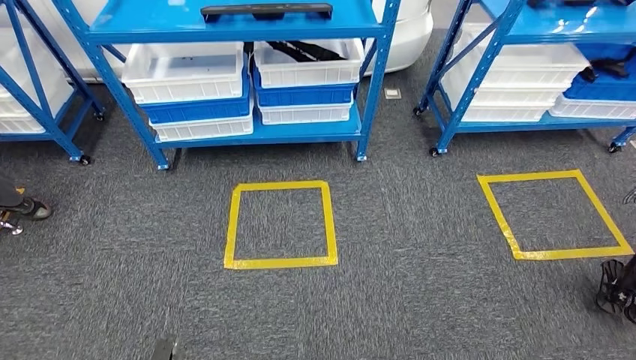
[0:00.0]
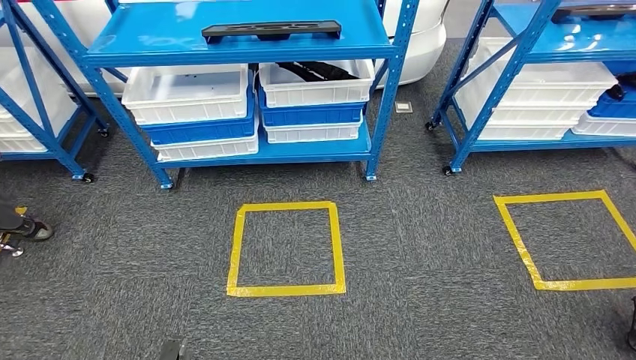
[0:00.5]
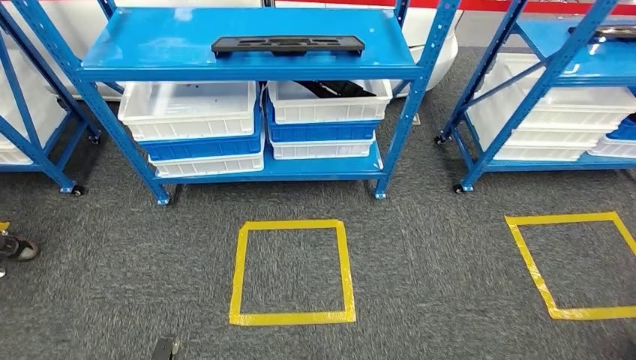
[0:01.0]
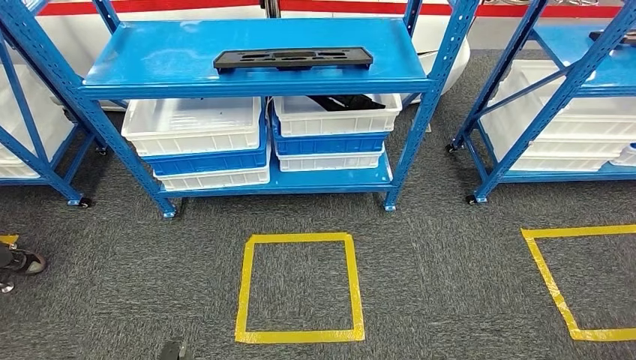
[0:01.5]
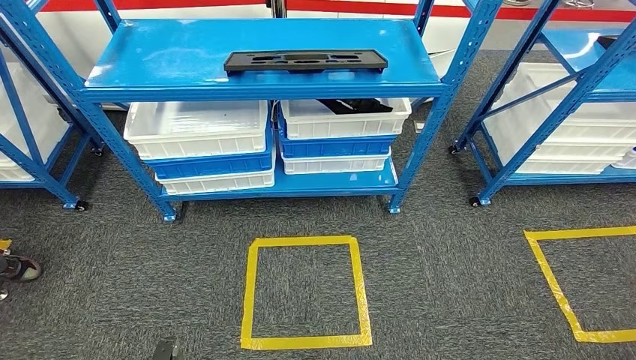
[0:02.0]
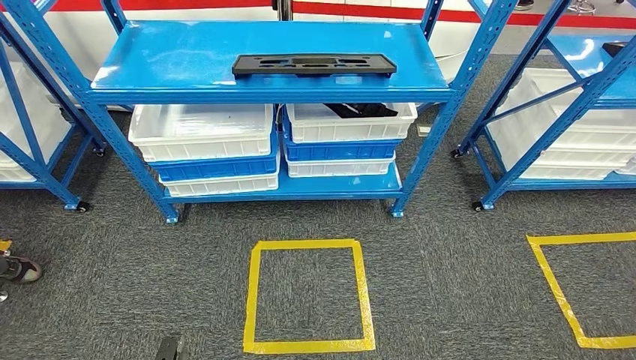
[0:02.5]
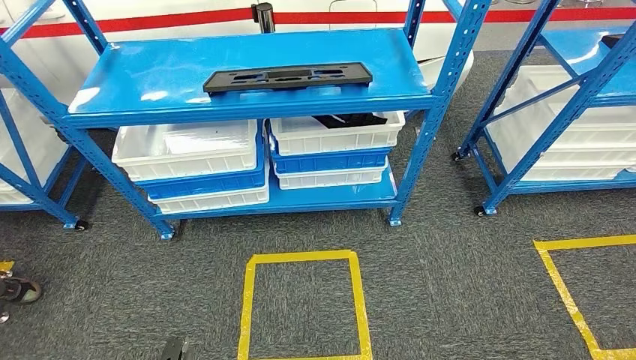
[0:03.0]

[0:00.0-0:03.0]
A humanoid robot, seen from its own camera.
Step, 0:00.0 to 0:03.0: Move to the initial position of the shelf.

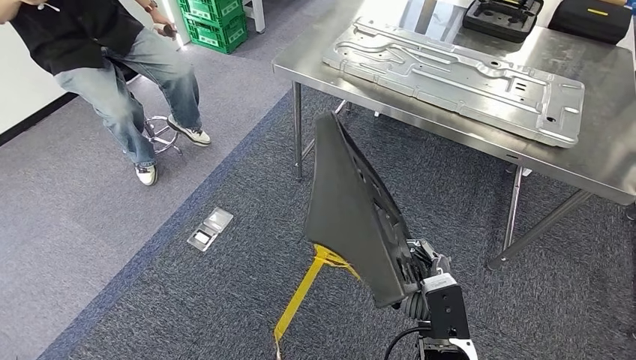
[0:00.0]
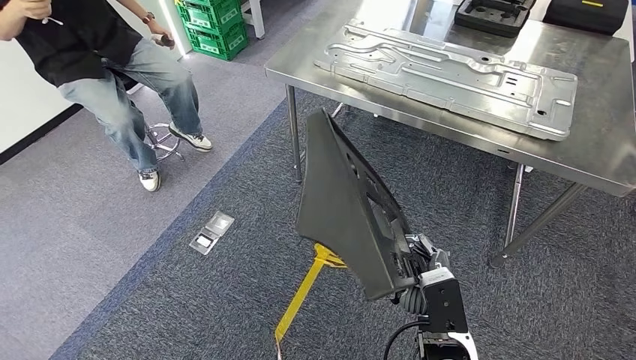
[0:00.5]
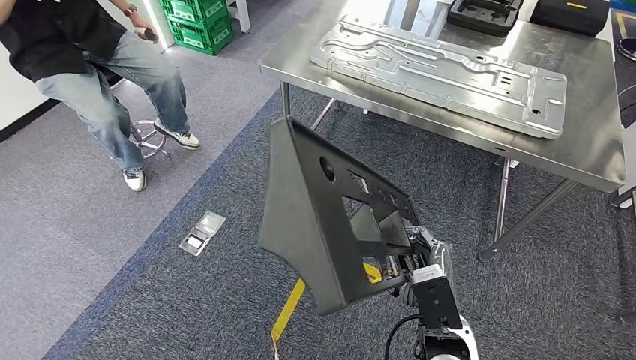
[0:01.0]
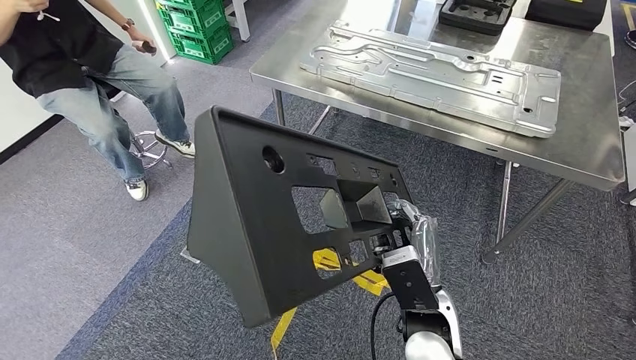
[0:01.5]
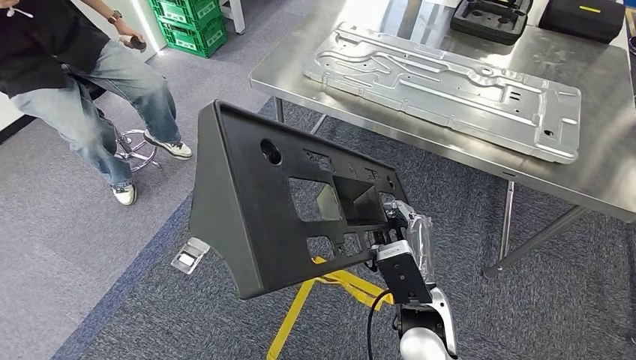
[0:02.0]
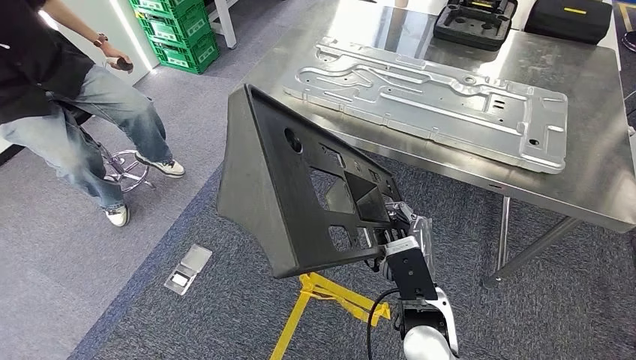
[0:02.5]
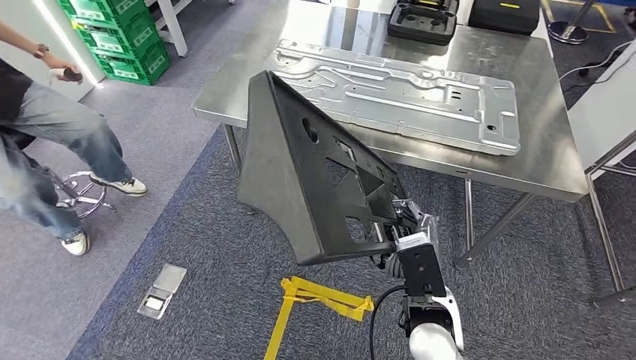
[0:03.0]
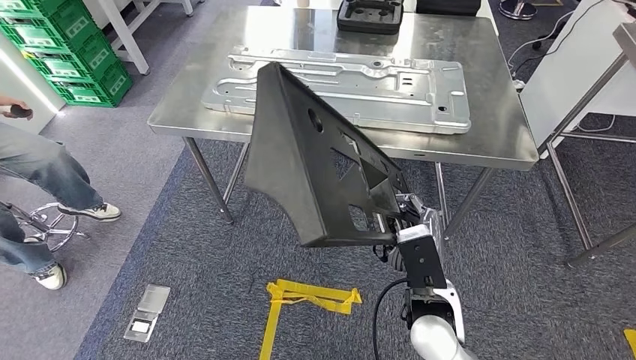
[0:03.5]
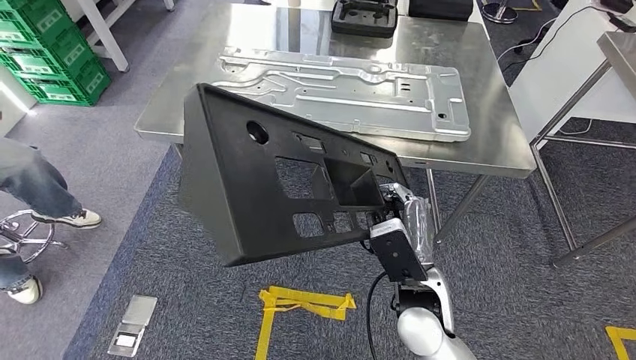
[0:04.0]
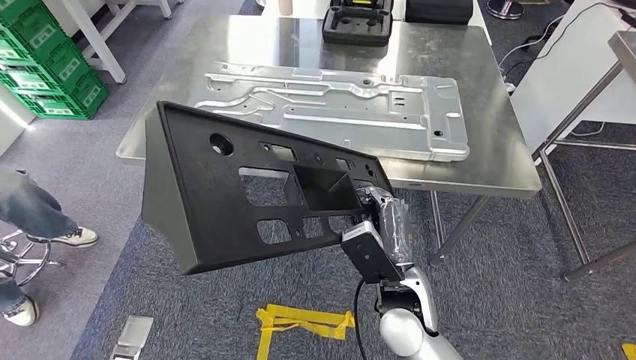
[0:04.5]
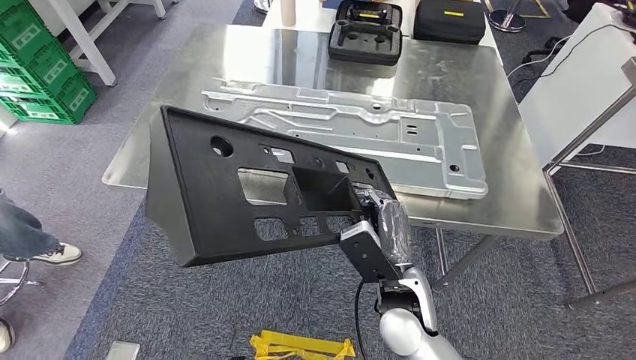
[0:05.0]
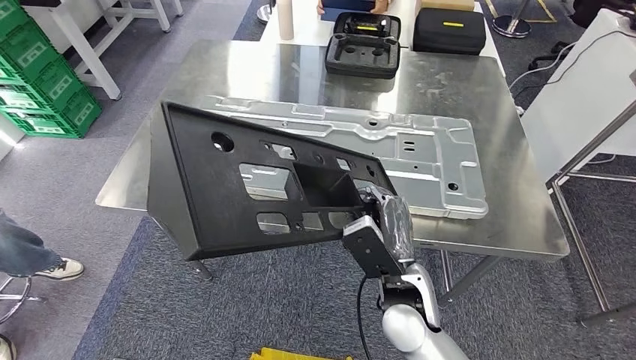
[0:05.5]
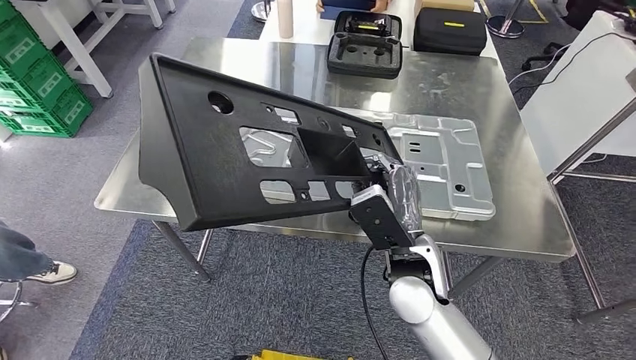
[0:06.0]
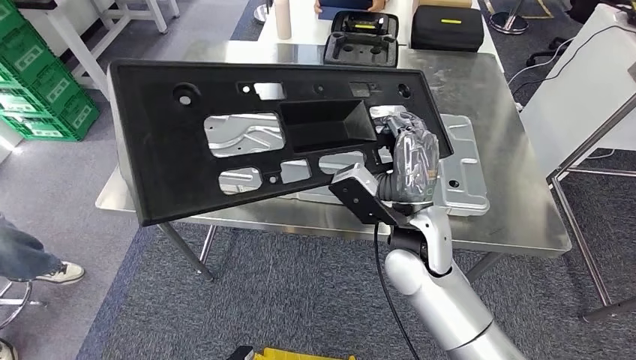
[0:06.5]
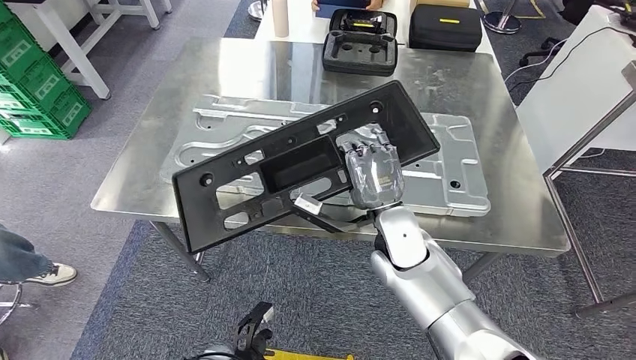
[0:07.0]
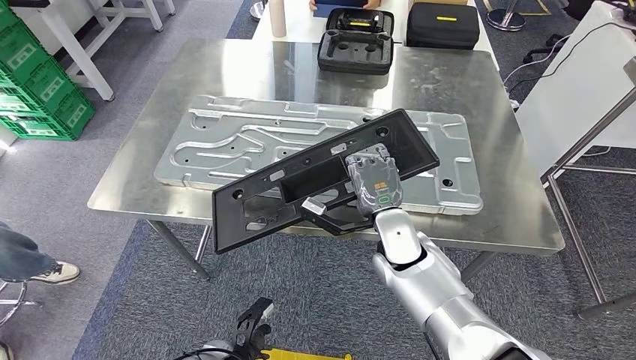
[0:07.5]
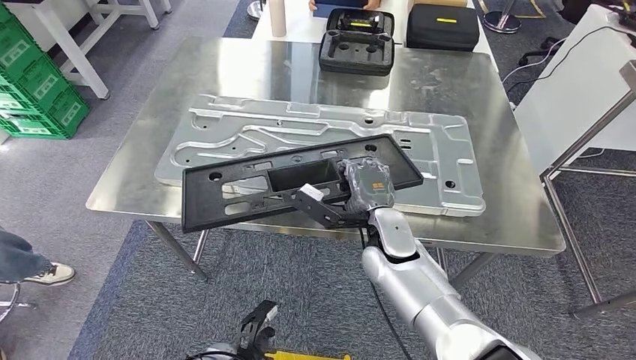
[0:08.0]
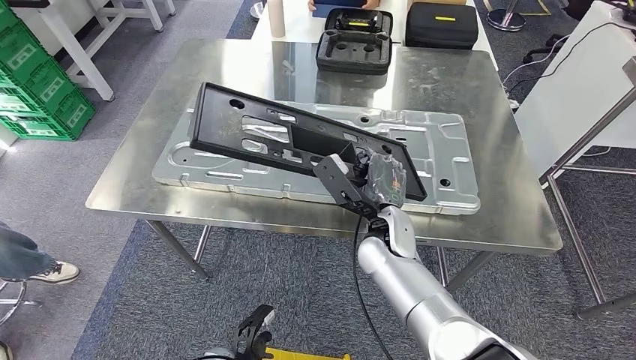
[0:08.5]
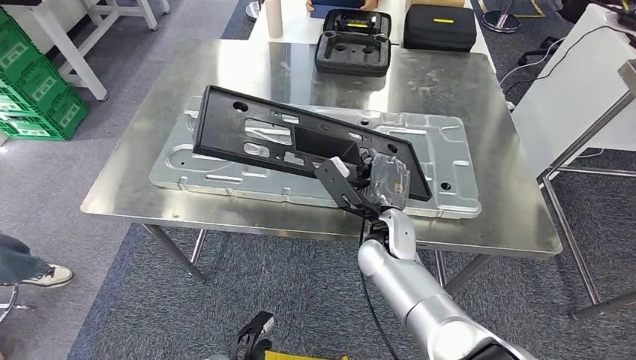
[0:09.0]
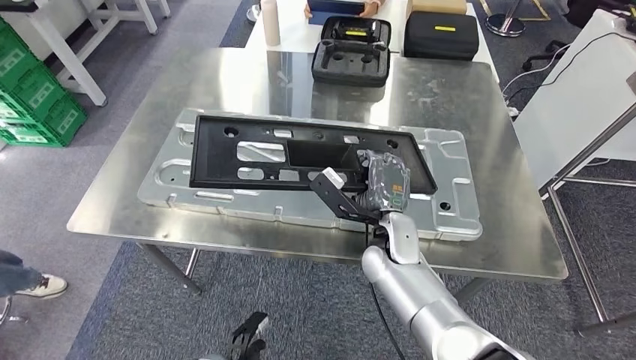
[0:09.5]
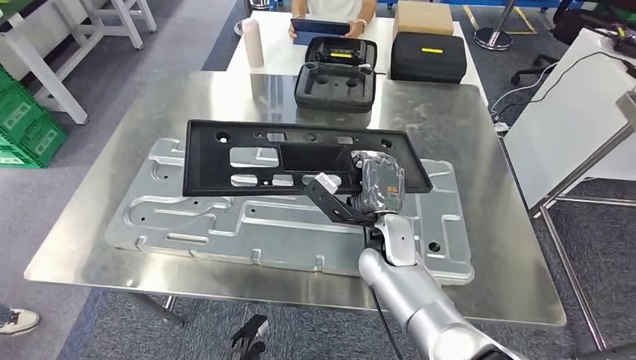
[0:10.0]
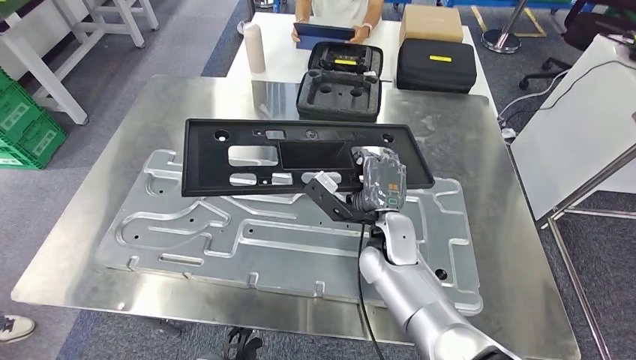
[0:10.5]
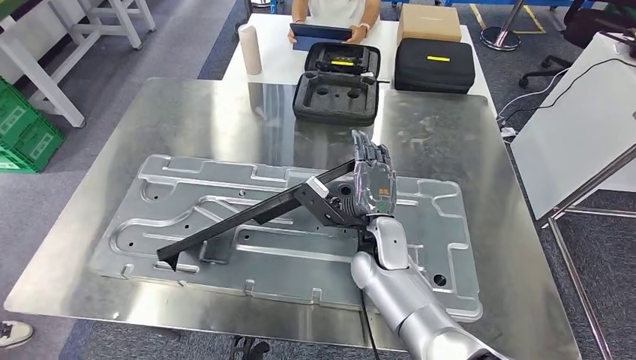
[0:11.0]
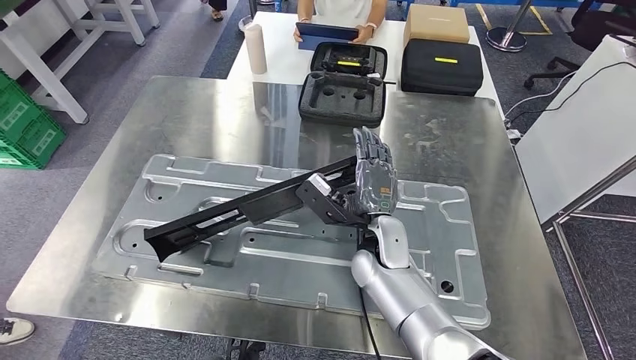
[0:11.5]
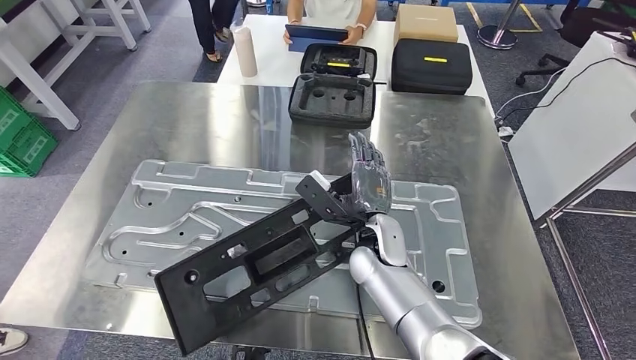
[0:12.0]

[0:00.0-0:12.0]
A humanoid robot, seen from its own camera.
Step, 0:00.0 to 0:04.0: Move the large material to the workbench.

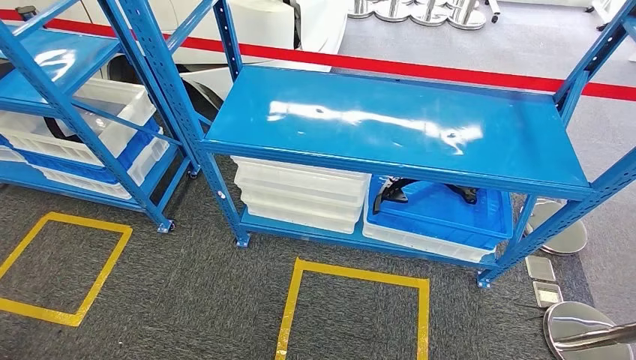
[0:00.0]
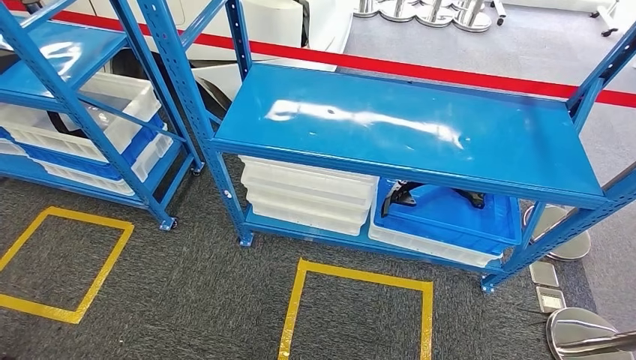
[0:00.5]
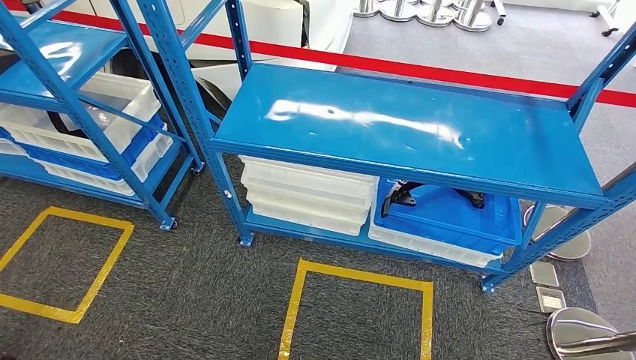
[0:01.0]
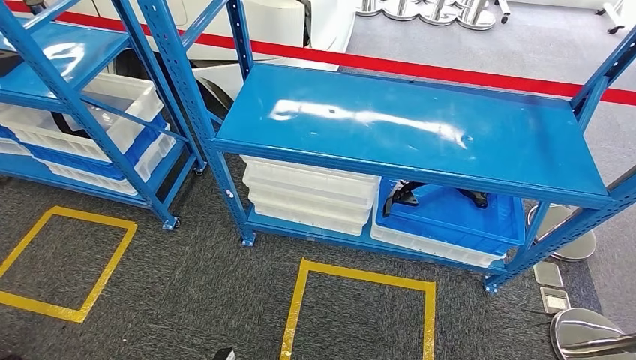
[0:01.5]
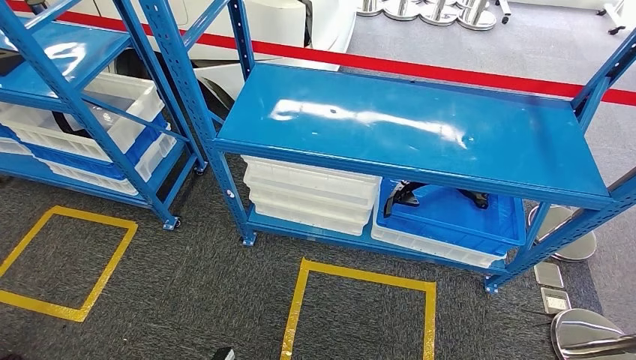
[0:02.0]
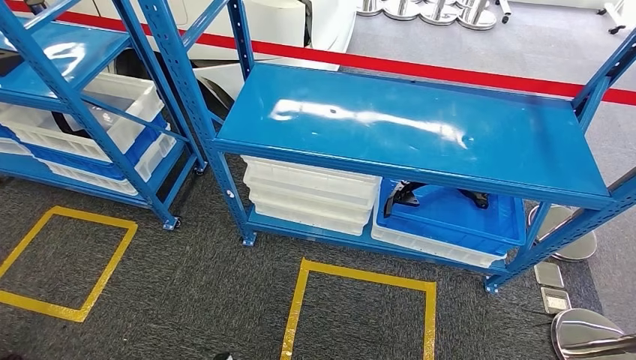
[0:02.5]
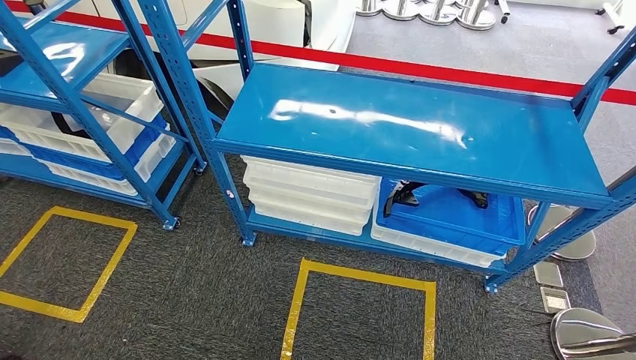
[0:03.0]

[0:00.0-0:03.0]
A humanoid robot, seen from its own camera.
Step, 0:00.0 to 0:03.0: Move to the initial position of the shelf.
